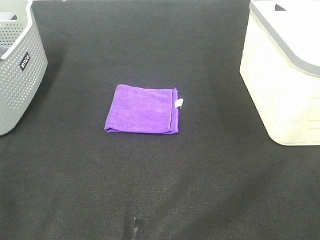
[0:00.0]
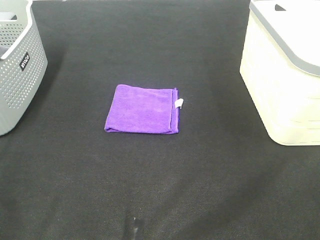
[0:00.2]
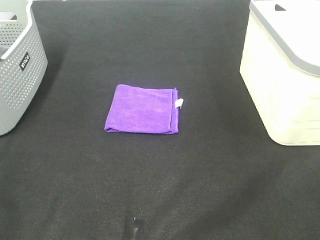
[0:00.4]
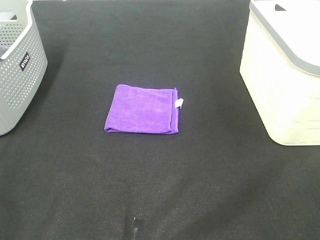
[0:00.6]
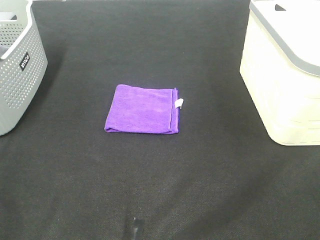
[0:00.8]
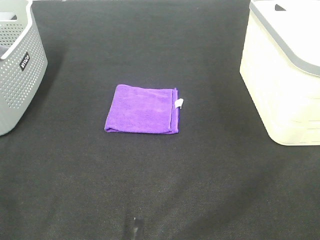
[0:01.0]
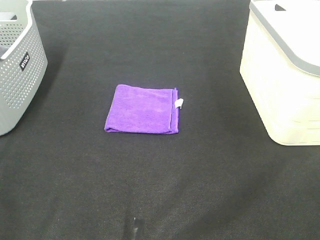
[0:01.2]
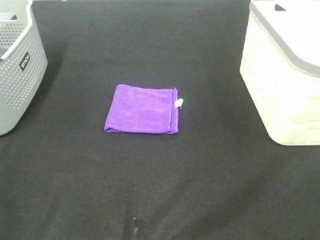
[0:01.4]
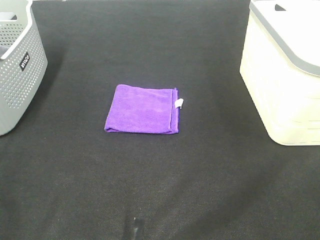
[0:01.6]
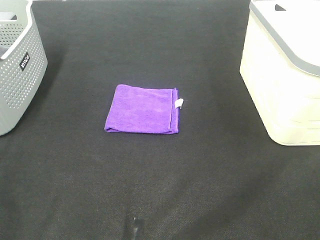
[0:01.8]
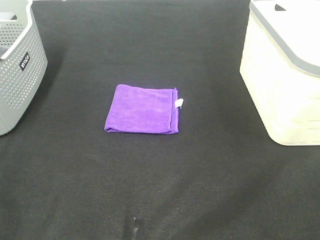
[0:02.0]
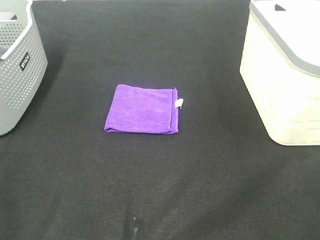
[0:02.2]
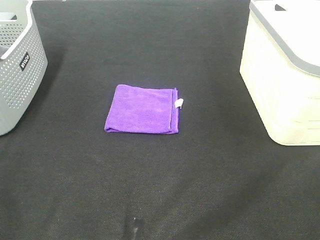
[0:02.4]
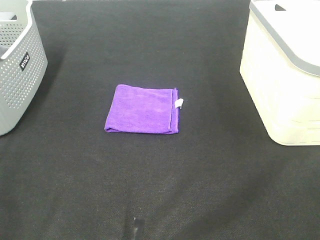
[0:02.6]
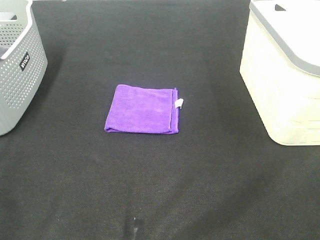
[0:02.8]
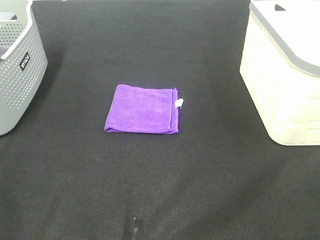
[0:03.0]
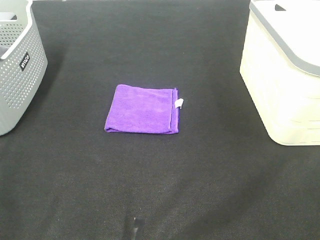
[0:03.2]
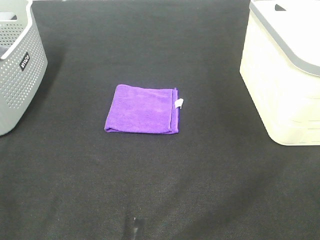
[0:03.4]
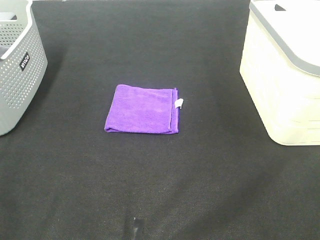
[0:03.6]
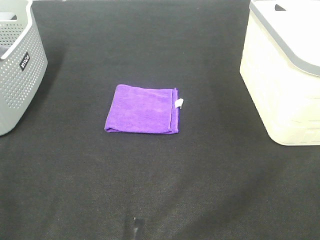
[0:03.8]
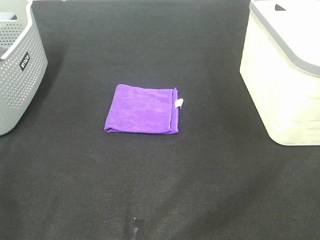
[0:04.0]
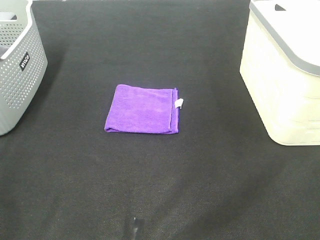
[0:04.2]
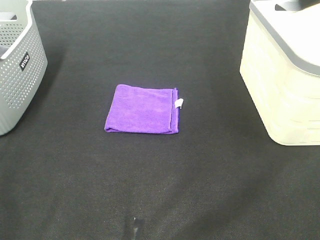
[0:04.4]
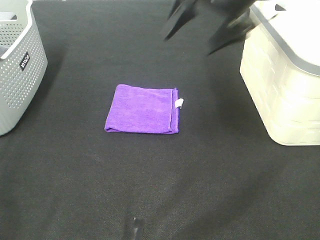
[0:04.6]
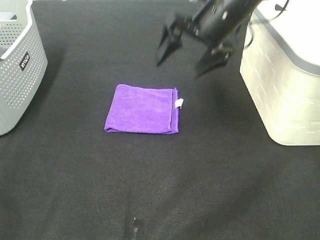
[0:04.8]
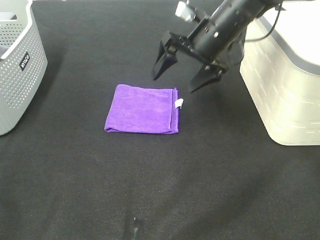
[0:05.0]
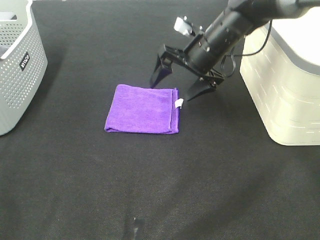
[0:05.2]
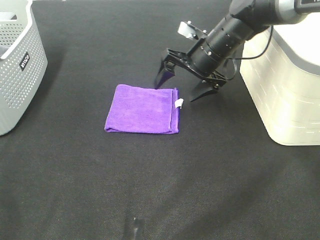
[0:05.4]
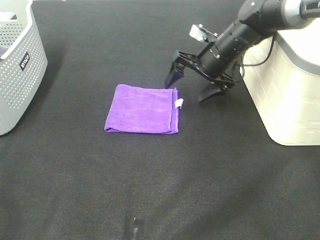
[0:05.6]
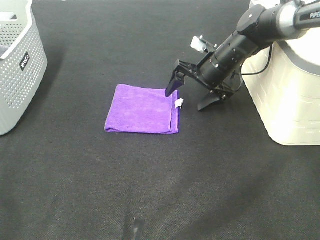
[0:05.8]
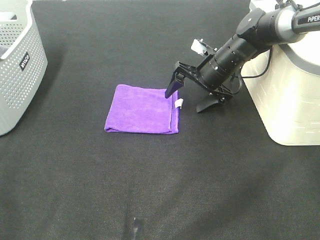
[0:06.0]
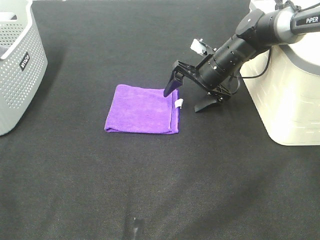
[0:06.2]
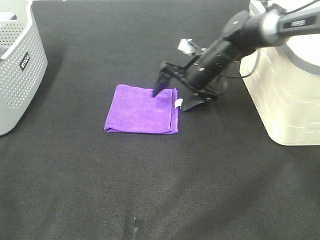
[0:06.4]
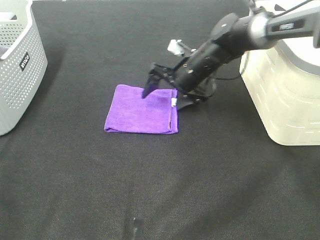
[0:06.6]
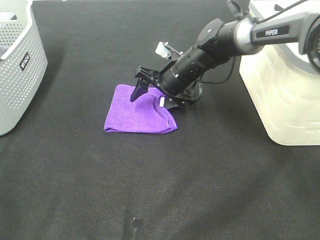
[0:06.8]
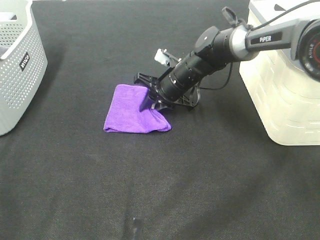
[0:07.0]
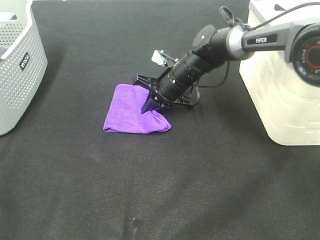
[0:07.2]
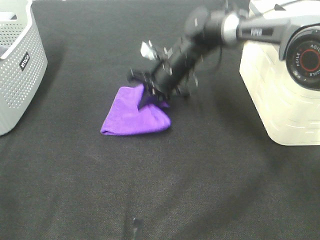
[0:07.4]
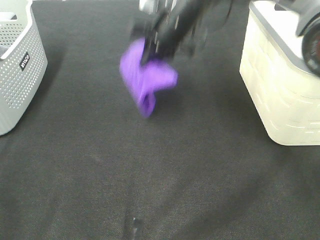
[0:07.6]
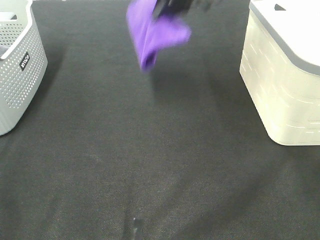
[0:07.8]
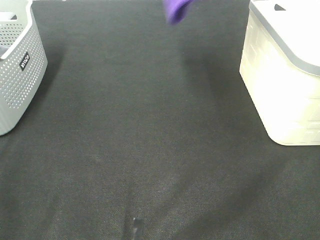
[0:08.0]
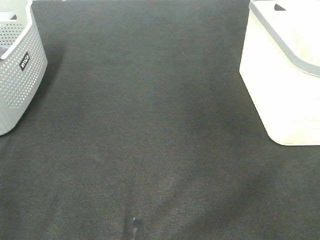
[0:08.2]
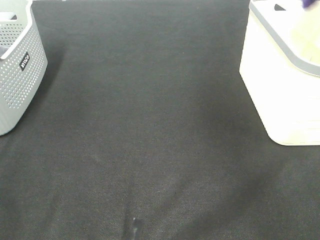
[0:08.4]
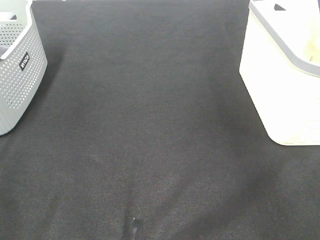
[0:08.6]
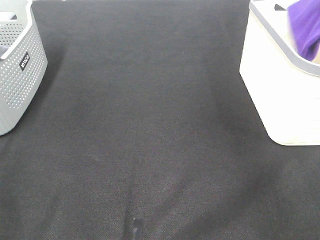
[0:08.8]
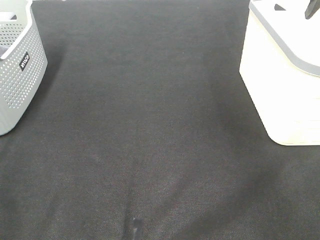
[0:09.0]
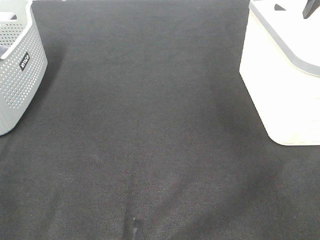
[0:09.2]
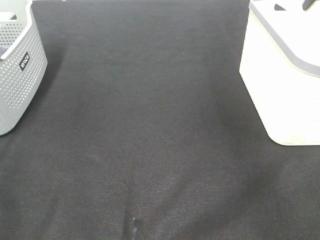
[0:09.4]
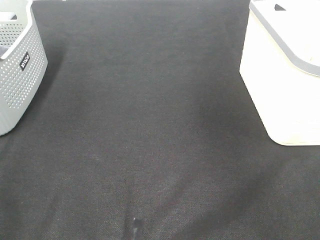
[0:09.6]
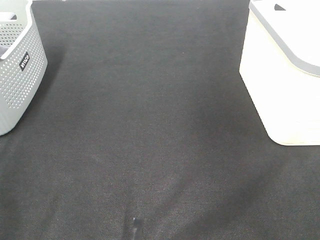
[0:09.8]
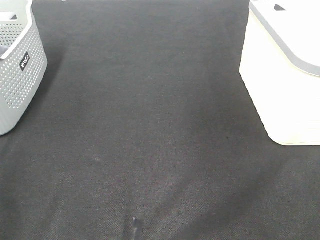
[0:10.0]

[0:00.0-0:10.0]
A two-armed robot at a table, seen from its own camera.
Step, 0:00.0 to 0:07.0: Right hand: grab the folded purple towel.
Step, 0:07.2 to 0:09.0: Right hand: place the purple towel in right basket.
0:00.0 to 0:02.8: Neither gripper changes place.
0:04.2 to 0:05.8: The right gripper shifts approximately 35 cm downward and forward.
0:05.8 to 0:07.2: The right gripper travels to the left by approximately 10 cm, and closes up.
0:07.2 to 0:08.6: The right gripper shifts approximately 40 cm to the right and upward.

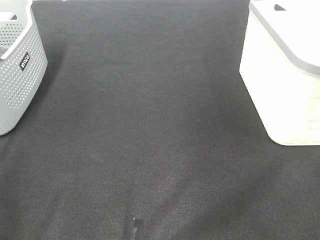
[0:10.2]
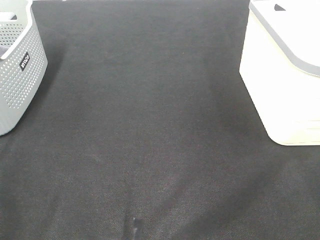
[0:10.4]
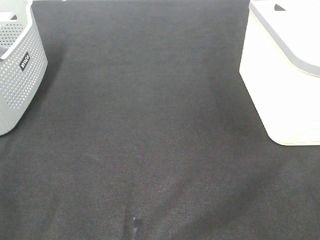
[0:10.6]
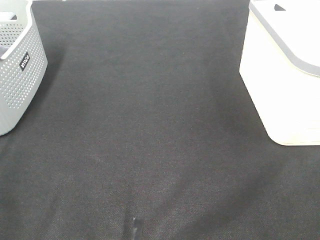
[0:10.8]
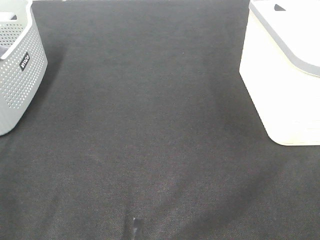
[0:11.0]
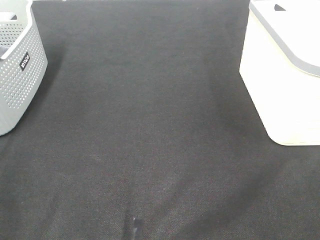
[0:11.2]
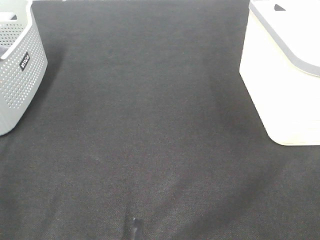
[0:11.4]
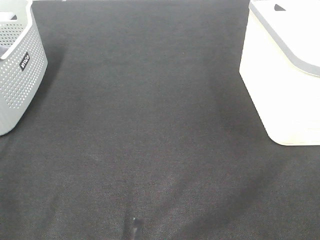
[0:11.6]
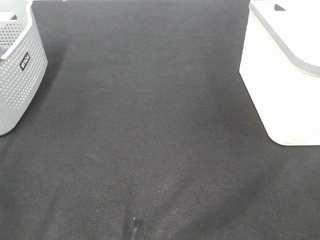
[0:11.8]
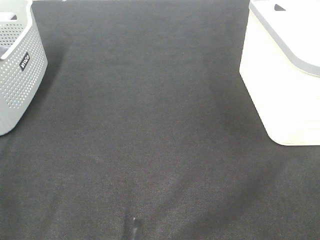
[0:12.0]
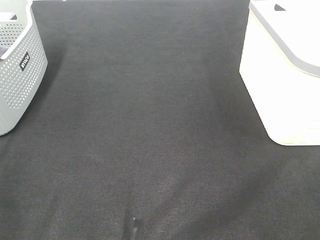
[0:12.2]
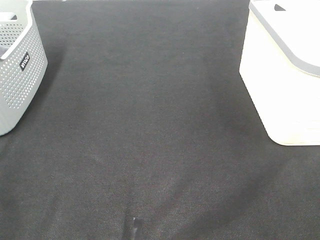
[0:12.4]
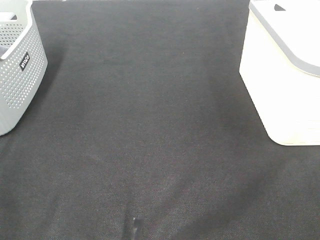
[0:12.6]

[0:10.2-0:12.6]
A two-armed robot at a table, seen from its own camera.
0:11.4 to 0:12.6: Both grippers stay about where they are.

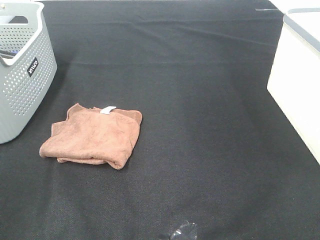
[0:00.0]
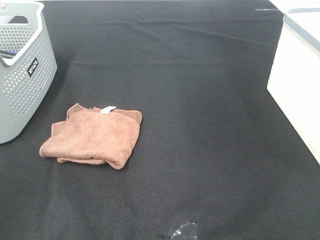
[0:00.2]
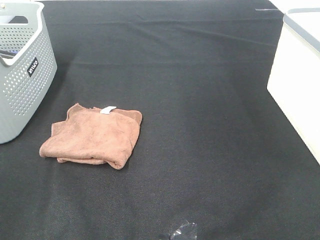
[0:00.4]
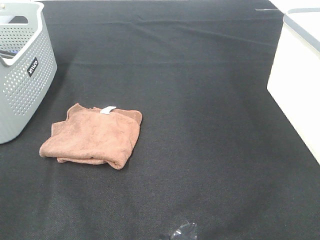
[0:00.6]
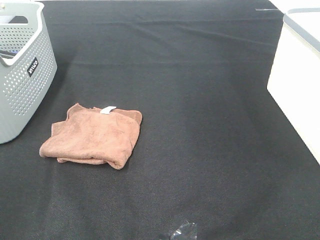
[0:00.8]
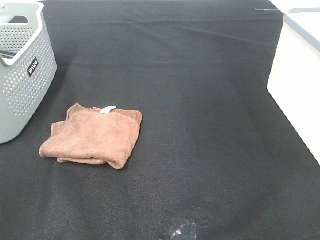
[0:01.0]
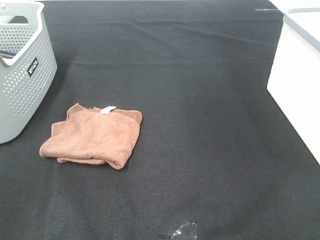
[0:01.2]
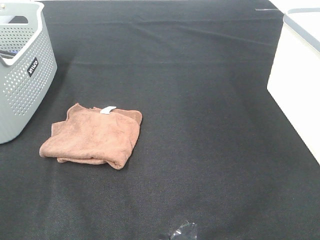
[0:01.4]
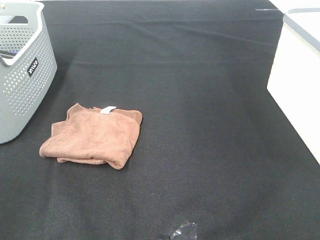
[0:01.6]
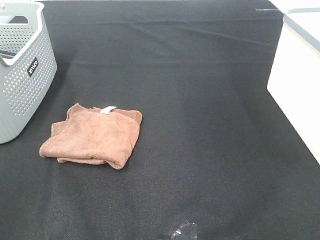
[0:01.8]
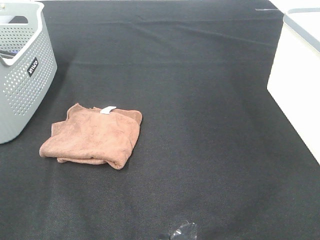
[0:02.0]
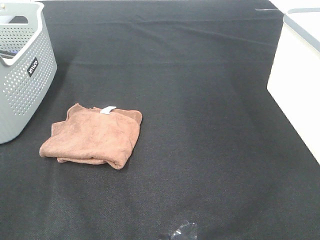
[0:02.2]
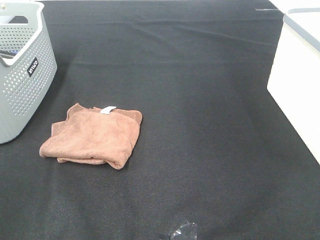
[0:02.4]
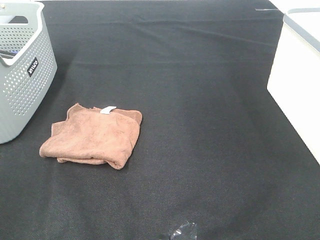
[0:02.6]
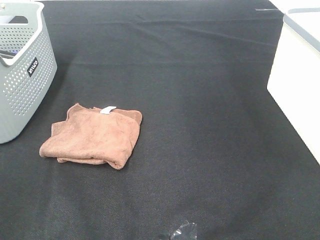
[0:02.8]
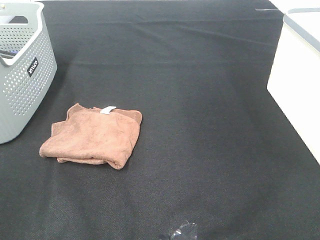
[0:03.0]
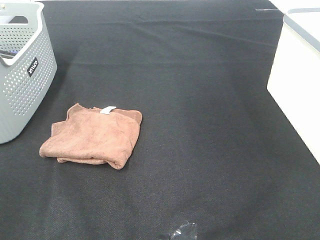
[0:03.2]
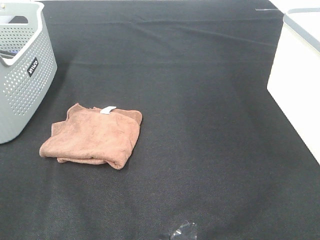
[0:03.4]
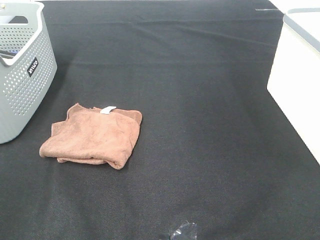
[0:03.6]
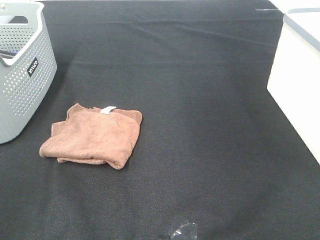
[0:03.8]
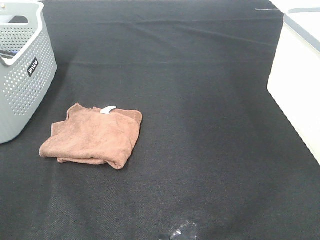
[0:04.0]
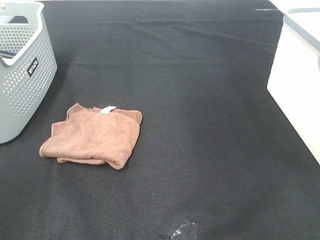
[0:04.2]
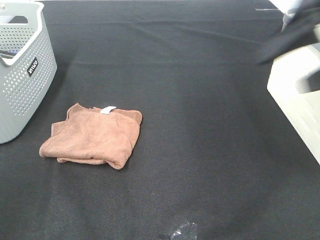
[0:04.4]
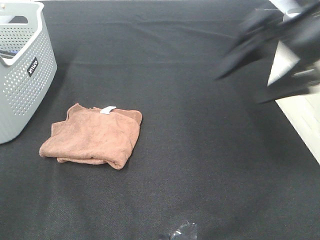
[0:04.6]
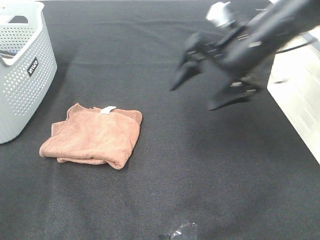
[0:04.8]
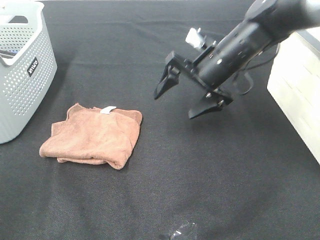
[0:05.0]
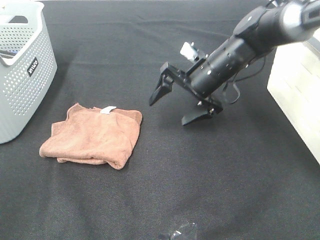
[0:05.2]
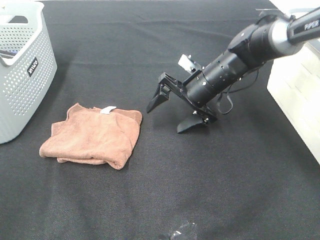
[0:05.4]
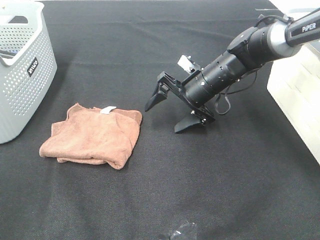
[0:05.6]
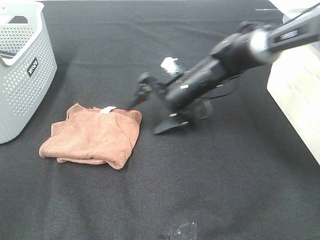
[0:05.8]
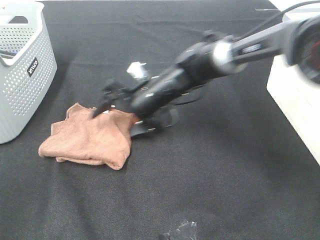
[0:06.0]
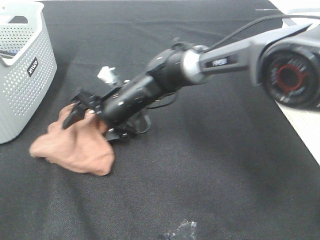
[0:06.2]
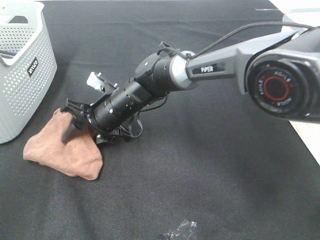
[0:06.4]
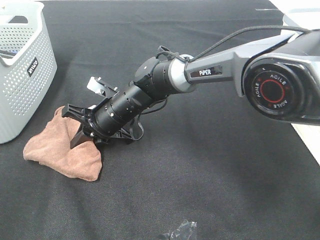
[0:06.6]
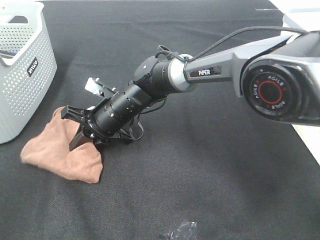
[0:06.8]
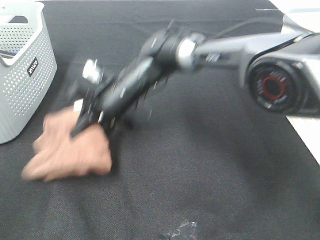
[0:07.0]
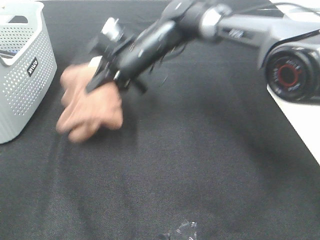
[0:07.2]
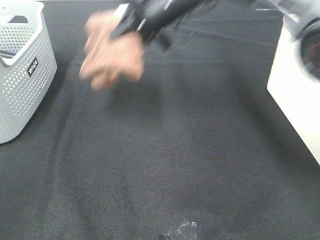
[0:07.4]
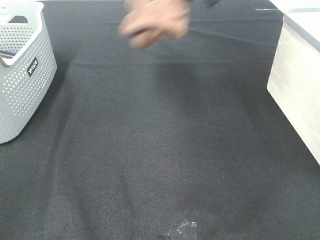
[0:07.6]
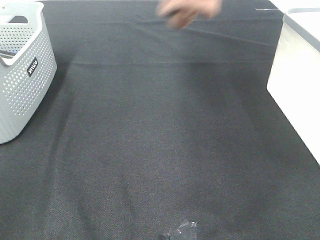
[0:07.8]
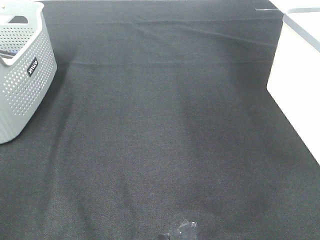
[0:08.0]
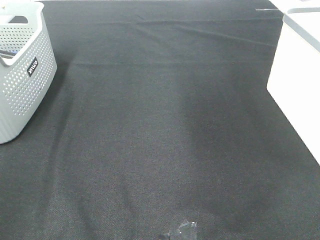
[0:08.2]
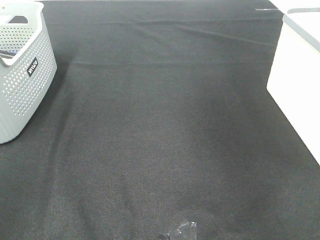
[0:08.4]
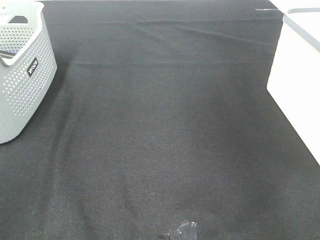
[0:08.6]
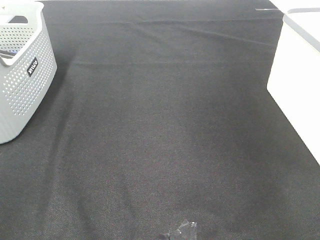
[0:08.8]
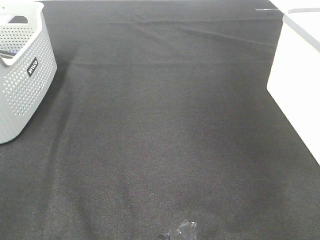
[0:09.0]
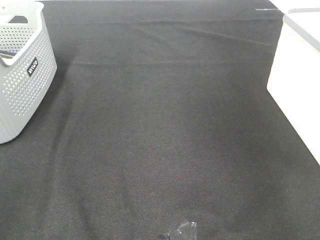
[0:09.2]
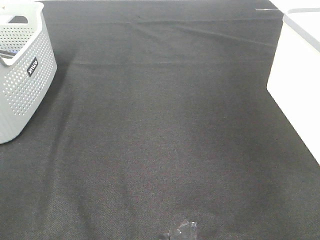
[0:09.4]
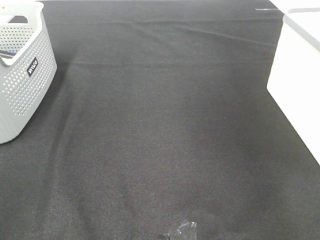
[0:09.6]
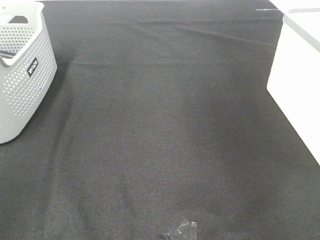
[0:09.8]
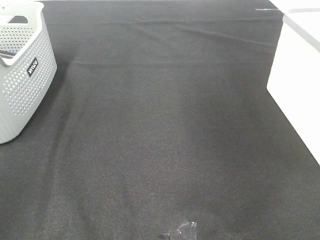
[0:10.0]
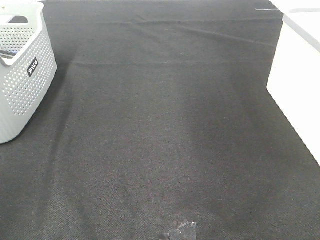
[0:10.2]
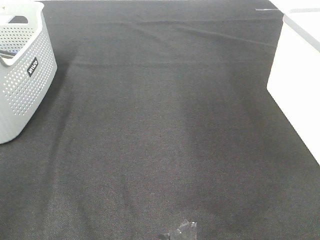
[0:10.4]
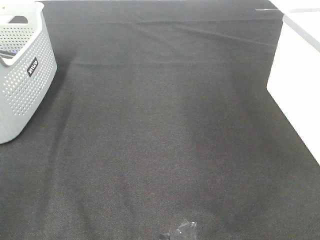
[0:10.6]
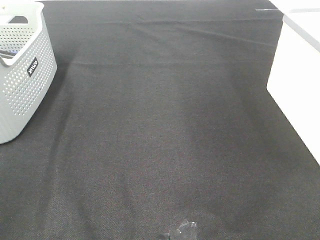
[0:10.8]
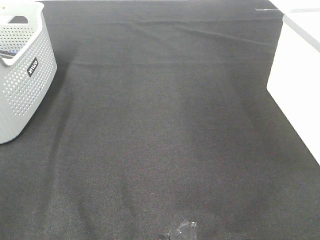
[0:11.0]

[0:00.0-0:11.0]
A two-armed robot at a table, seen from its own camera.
Step, 0:00.0 to 0:06.6: Right hand: grab the folded brown towel.
Step, 0:06.8 to 0:09.2: Right hand: place the brown towel in right basket.
0:00.0 to 0:03.2: Both grippers stay put.
0:03.2 to 0:04.8: The right gripper travels forward and to the left by approximately 40 cm.
0:04.8 to 0:06.2: The right gripper travels to the left and downward by about 25 cm.
0:06.2 to 0:07.8: The right gripper is displaced upward and to the right by about 40 cm, and closes.
0:07.8 to 0:09.4: The right gripper travels to the right by about 25 cm, and opens.
